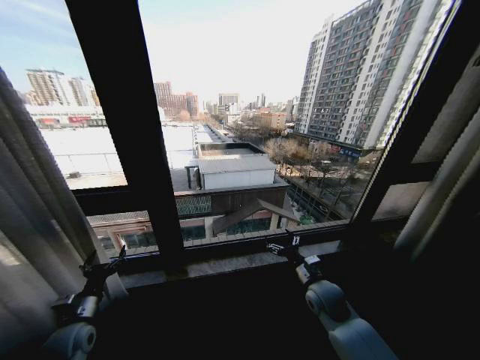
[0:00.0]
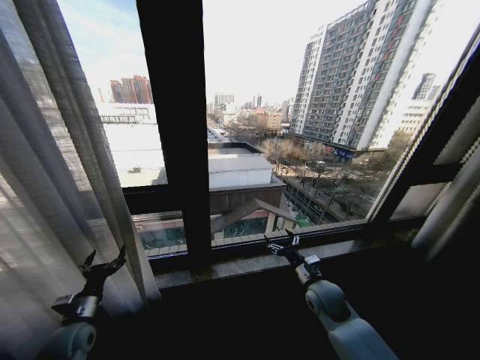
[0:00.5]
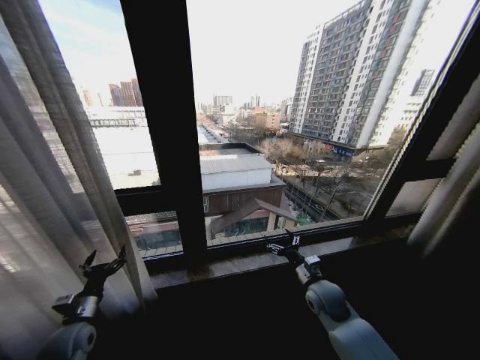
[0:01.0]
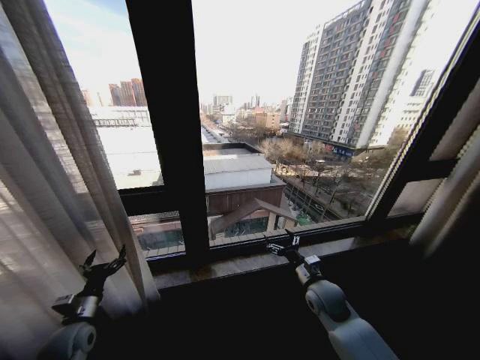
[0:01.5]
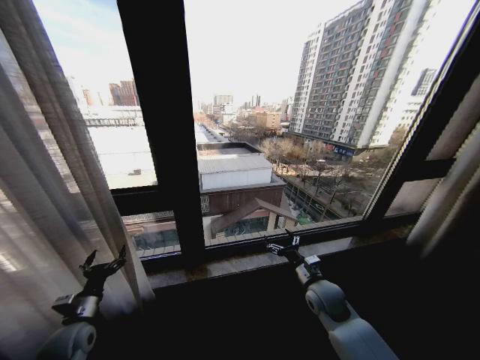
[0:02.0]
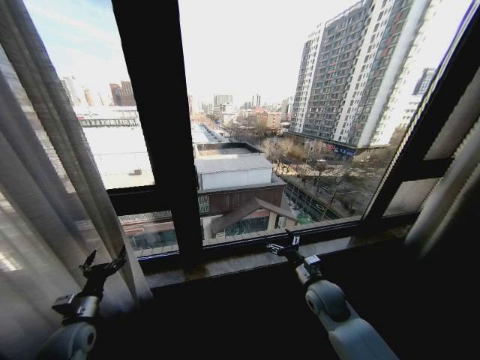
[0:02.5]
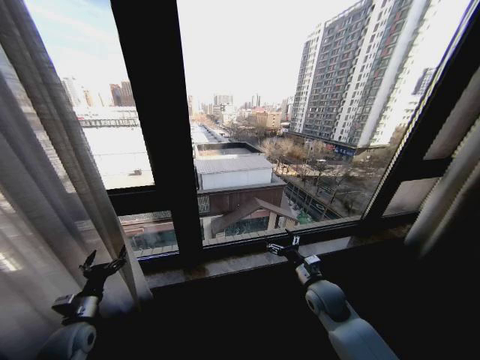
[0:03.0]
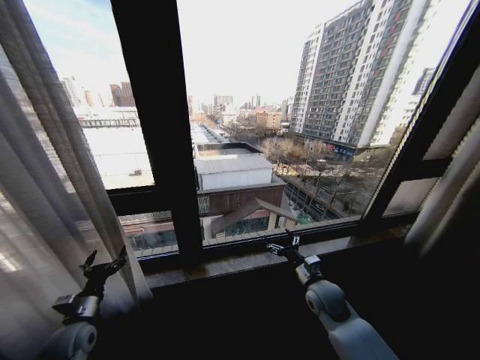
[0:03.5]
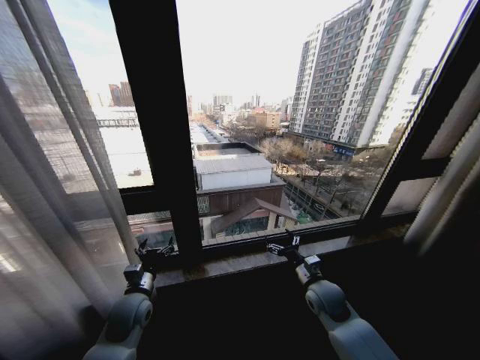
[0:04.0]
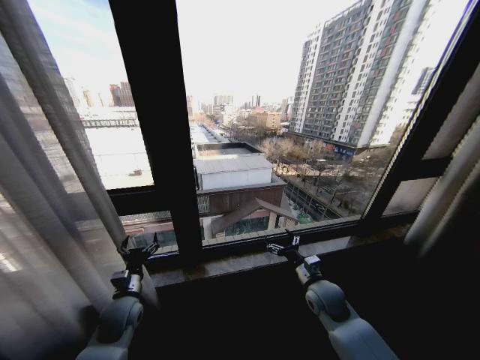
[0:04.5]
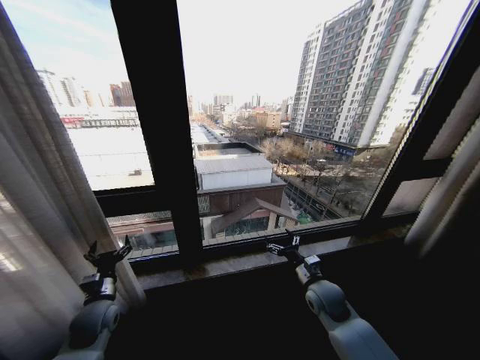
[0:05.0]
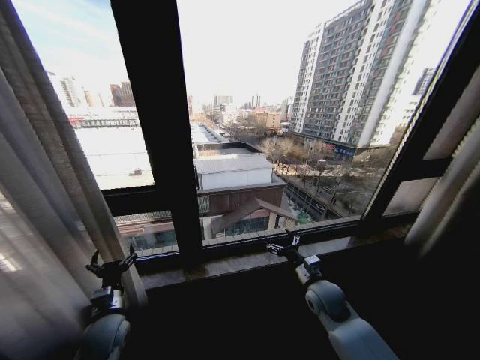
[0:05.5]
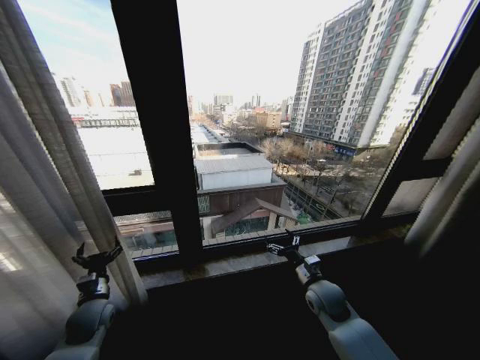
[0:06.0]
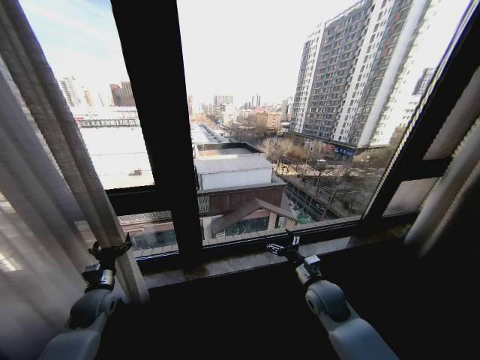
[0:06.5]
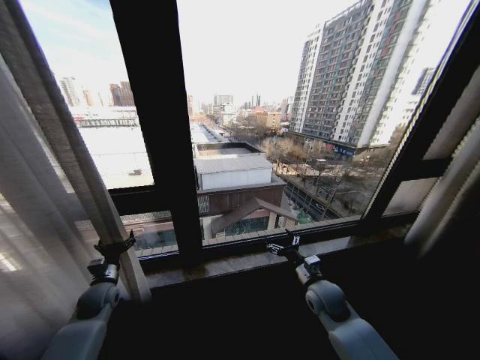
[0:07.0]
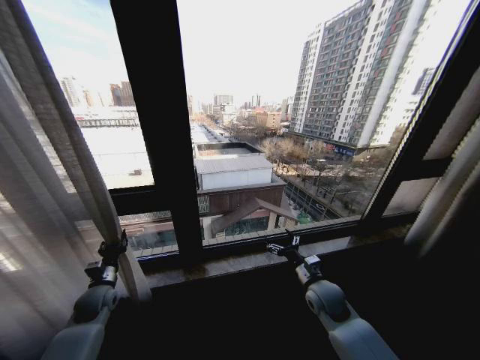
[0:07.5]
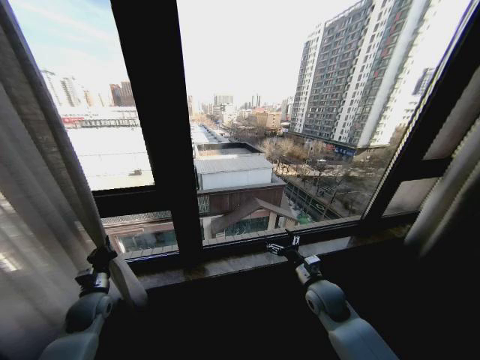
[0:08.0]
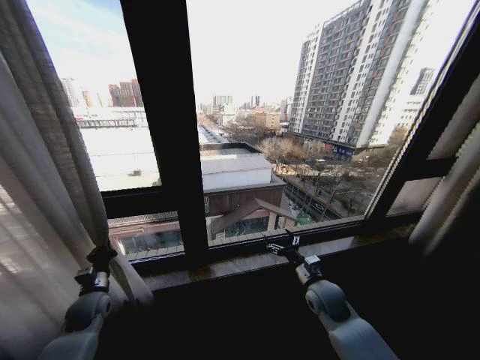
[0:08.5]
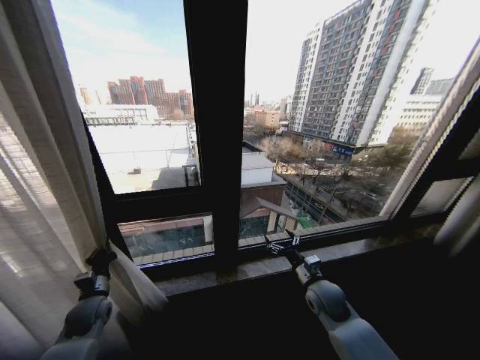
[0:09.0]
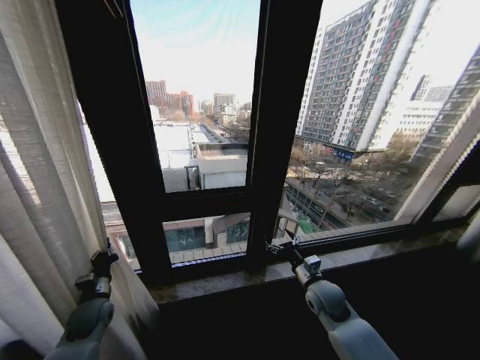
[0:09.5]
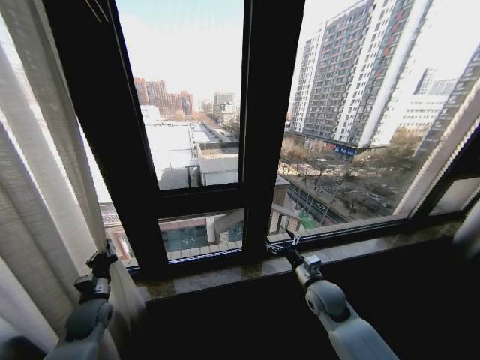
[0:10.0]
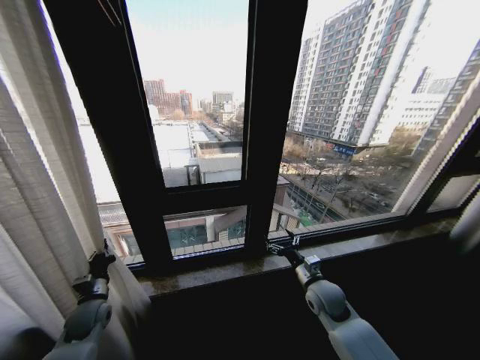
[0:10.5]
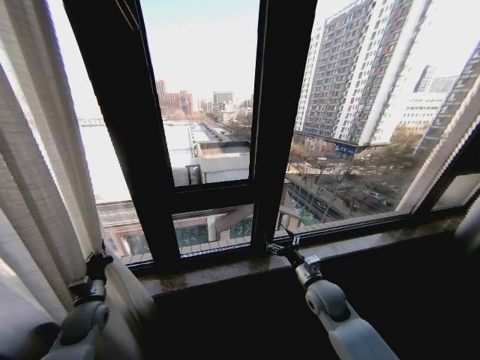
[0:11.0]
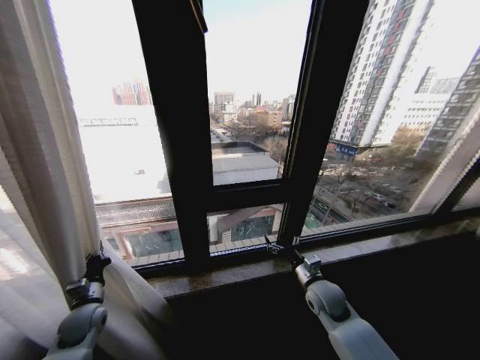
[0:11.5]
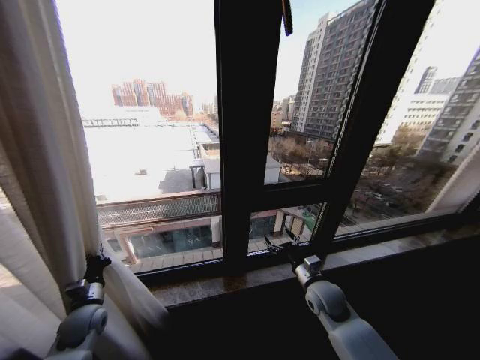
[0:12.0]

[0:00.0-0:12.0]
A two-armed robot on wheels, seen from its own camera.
Task of the whole recording: Open the curtains by pulling them apart, changing their state from closed to fully open.
0:02.0 to 0:04.0: The left gripper goes some 15 cm to the right.
0:04.0 to 0:06.0: The left gripper goes left and right, approximately 10 cm each way, reversing 2 times.
0:06.0 to 0:08.0: The left gripper ends up some 5 cm from where it was, and closes up.

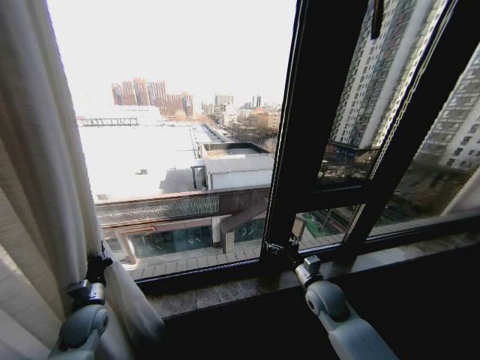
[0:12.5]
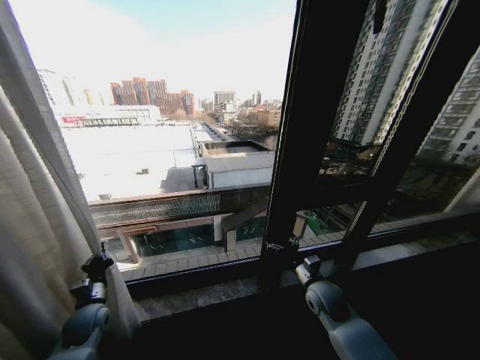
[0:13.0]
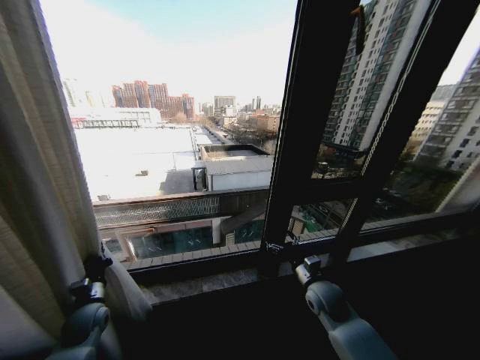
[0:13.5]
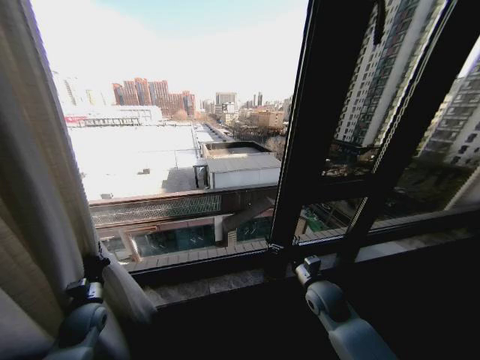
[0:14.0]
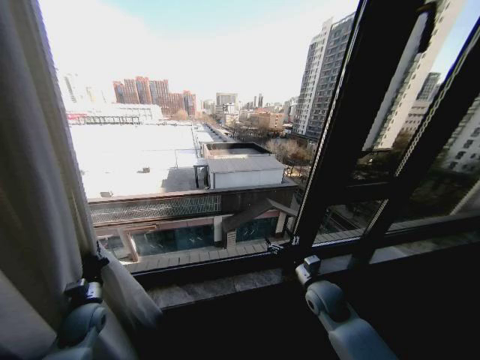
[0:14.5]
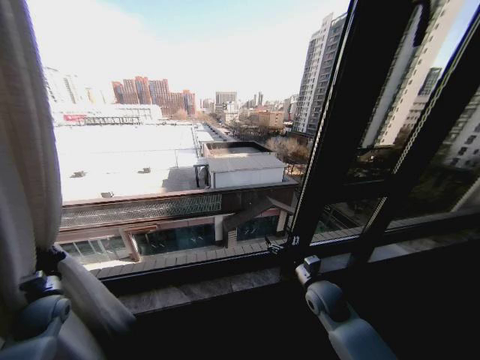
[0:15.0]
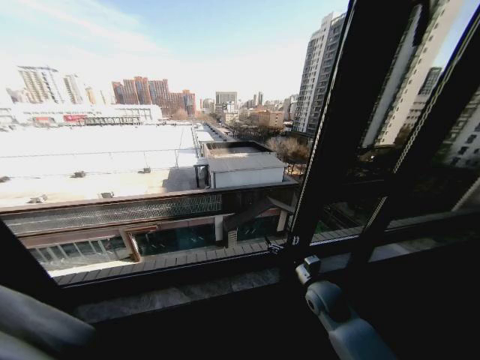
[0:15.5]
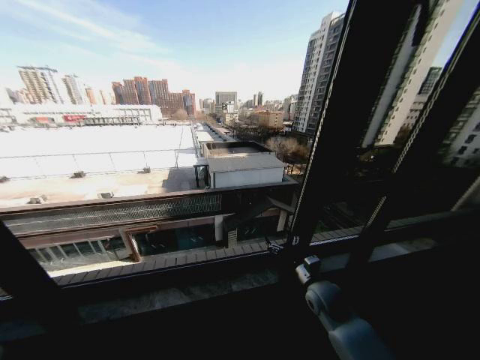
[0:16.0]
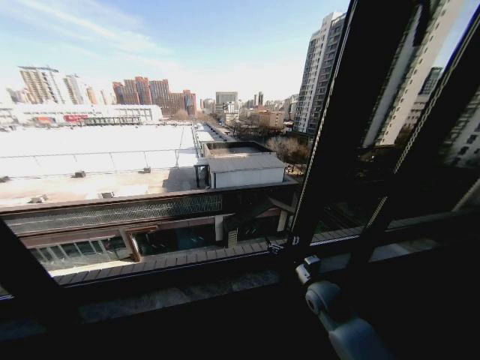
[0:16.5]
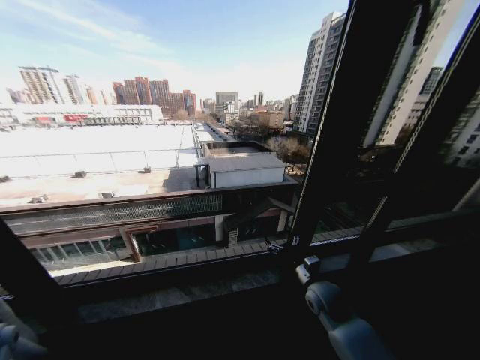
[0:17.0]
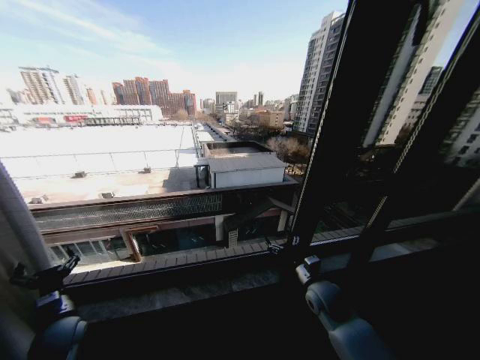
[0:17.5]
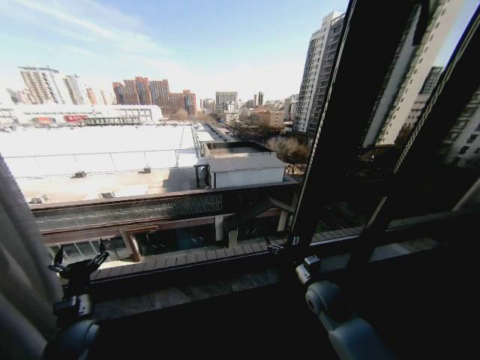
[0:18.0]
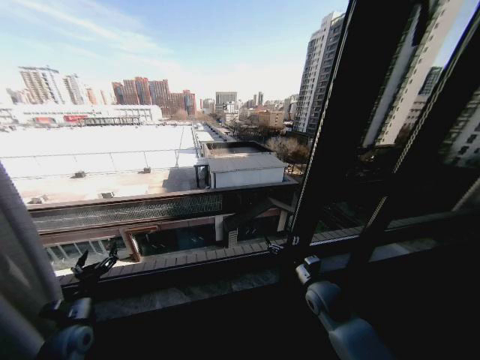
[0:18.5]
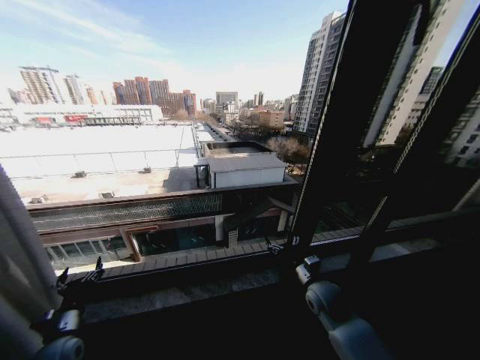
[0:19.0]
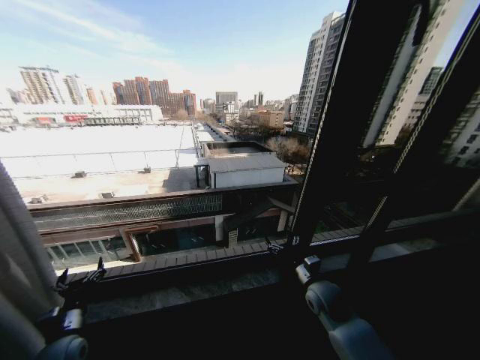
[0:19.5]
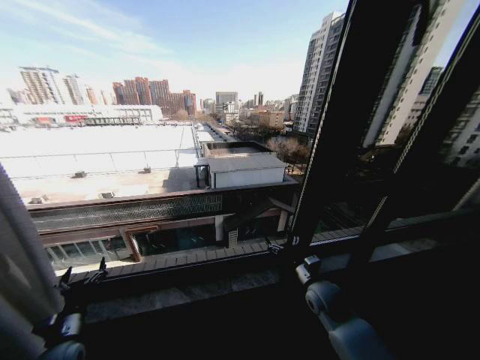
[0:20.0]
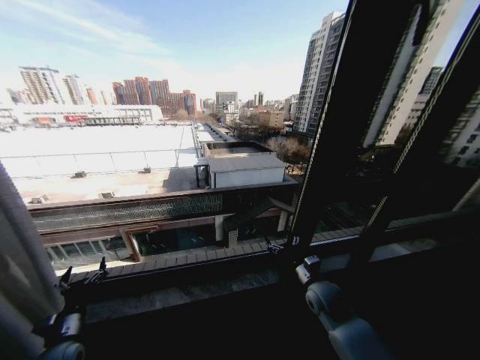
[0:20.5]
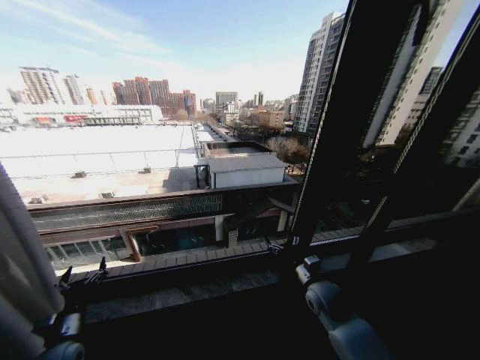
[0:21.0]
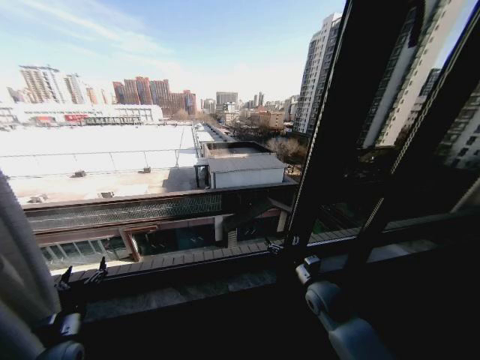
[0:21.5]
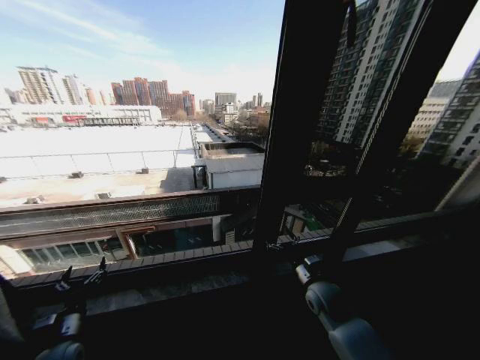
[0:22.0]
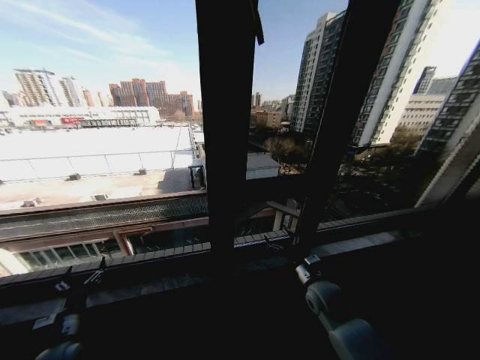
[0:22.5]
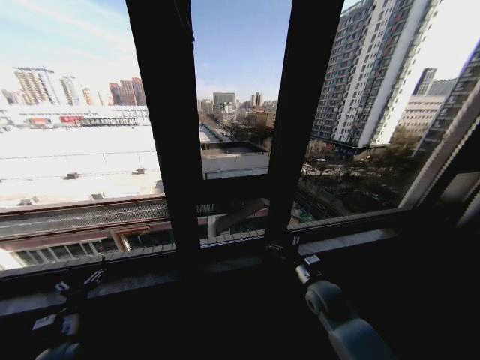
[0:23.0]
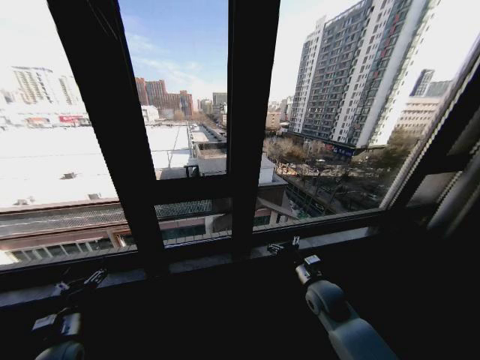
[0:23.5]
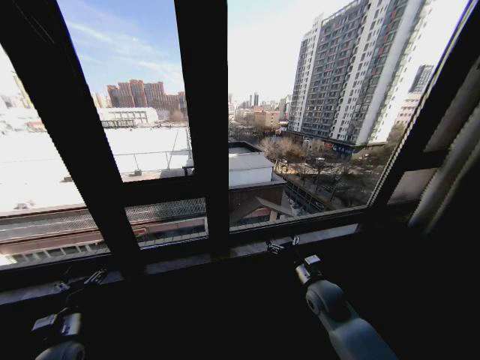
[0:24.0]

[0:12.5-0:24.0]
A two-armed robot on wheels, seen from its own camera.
Task of the whole recording: Open the curtains by pulling them apart, changing their state from closed to fully open.
0:14.5 to 0:16.5: The left gripper goes approximately 25 cm to the left.
0:16.5 to 0:18.5: The left gripper travels to the right by approximately 25 cm, and opens its fingers.
0:18.5 to 0:20.0: The grippers move only a little.

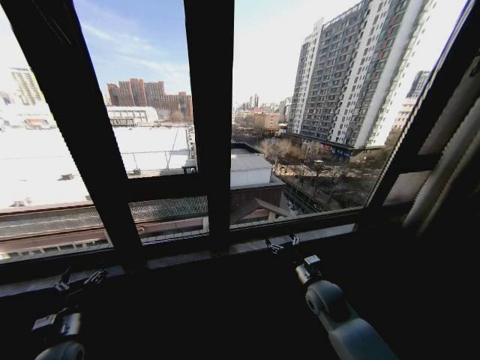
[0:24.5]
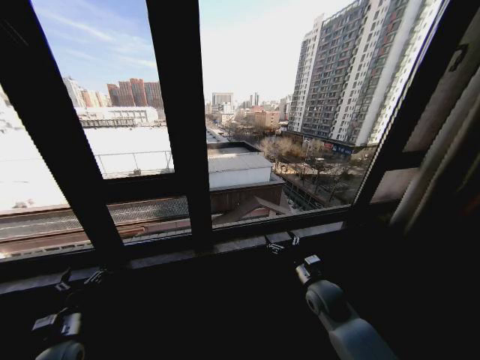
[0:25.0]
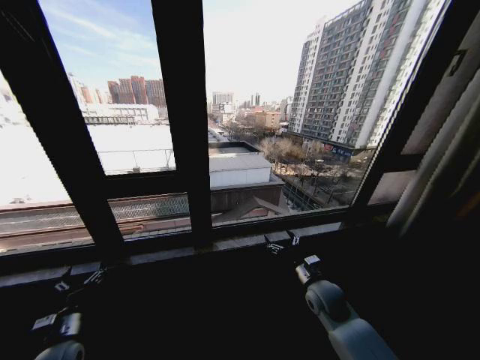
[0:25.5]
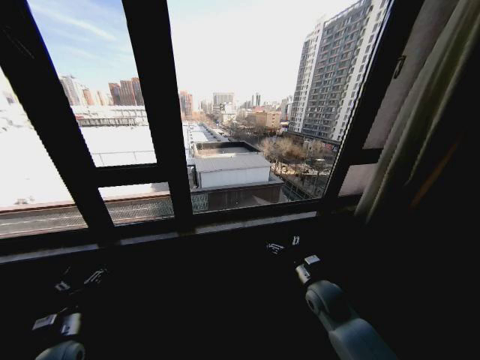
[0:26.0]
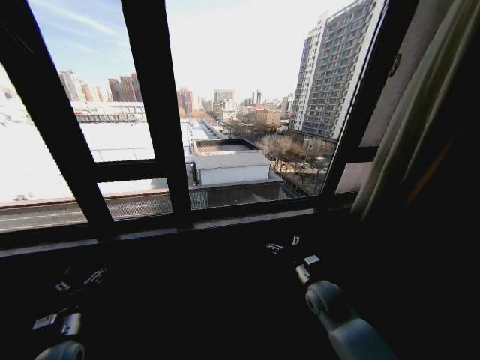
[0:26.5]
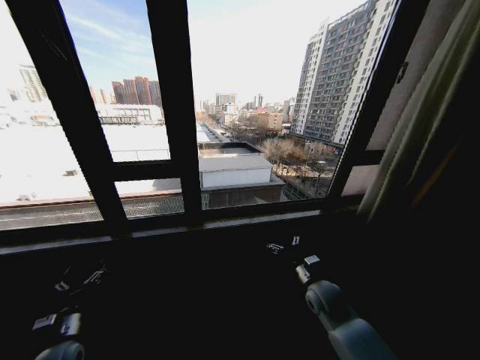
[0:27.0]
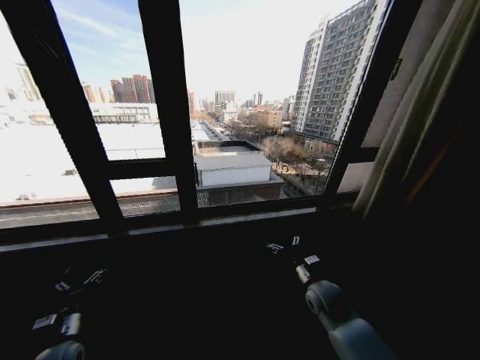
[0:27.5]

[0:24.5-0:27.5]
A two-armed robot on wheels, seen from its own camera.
Task of the whole recording: Open the curtains by pulling them apart, changing their state from closed to fully open.
0:26.0 to 0:27.5: Both grippers stay put.
